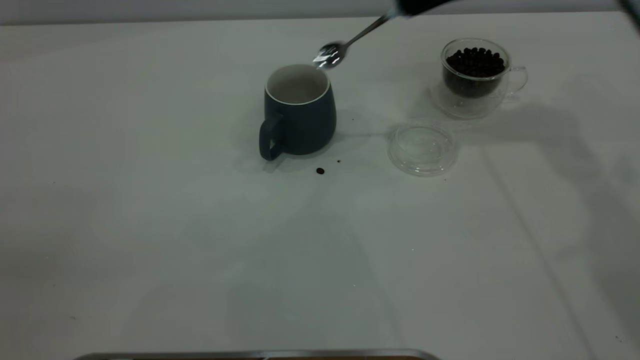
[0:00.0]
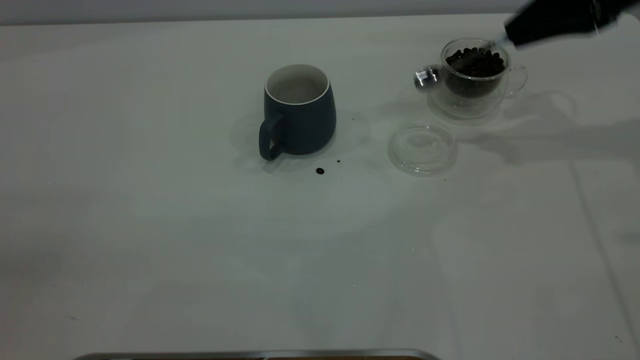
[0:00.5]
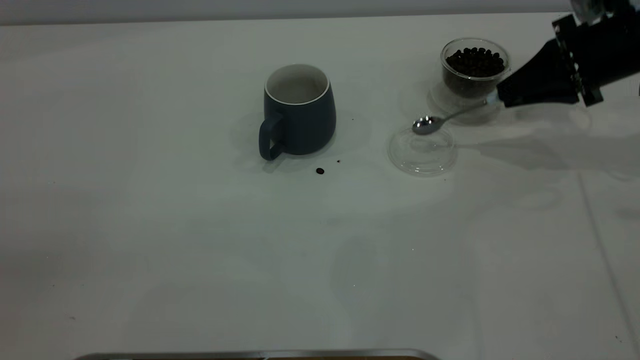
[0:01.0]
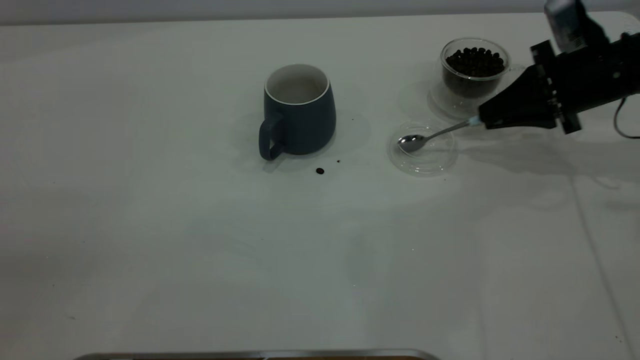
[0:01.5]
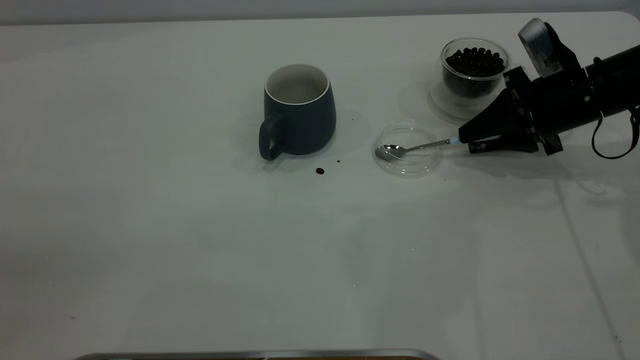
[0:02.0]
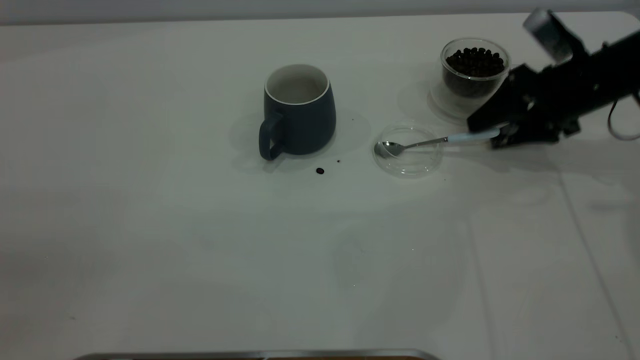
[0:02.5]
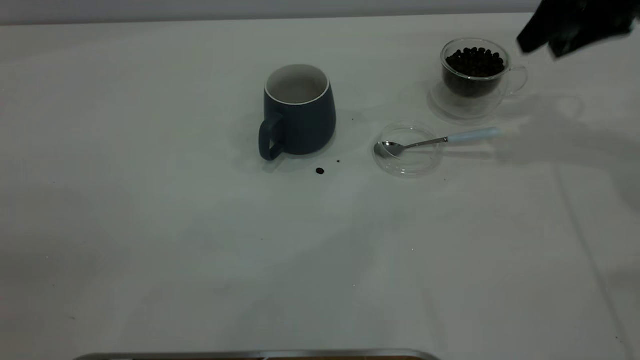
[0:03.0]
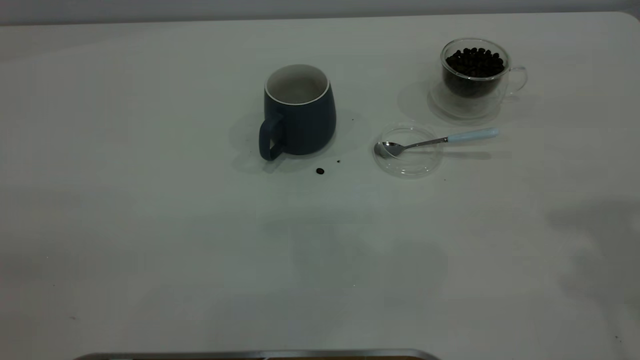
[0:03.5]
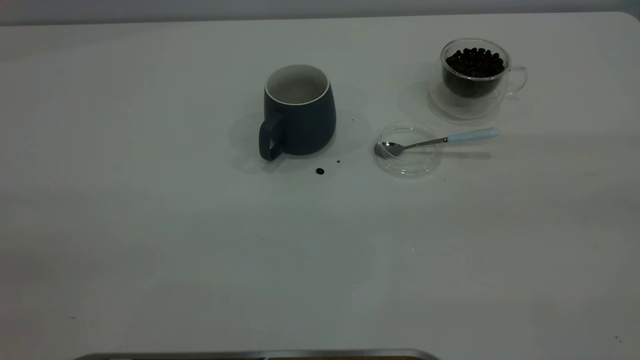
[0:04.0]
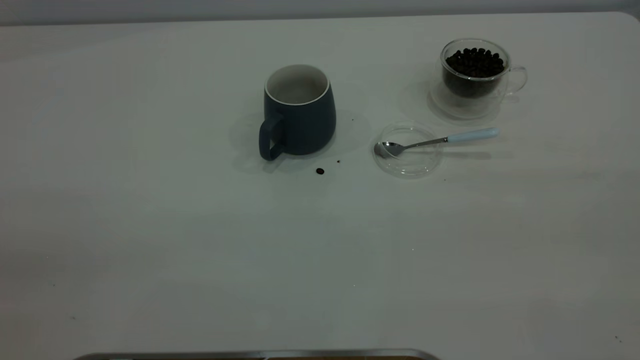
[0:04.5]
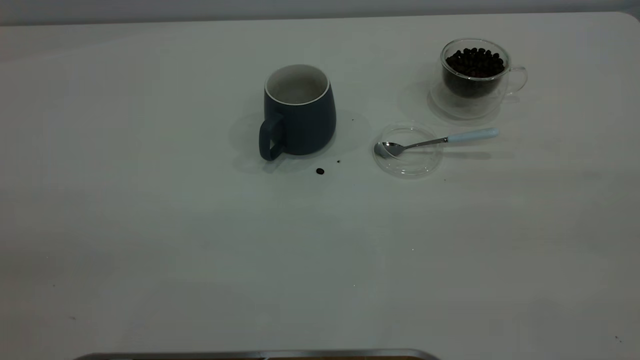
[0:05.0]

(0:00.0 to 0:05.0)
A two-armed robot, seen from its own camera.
Task of the whole recording: the left gripper place the grey cup in the center of the table, the right gripper take the blue spoon from the cup lid and scoop out the coffee beans from the coffee cup and put them into the grey cup, the right gripper put the spoon back into the cup lid.
Step, 0:00.0 - 0:02.5: Place the spoon back in its original place.
0:00.0 - 0:02.5: The right gripper shifts roughly 15 cm downward and to the right, and opens its fingers.
0:02.5 - 0:05.0: The right gripper travels backward and upward by approximately 50 cm.

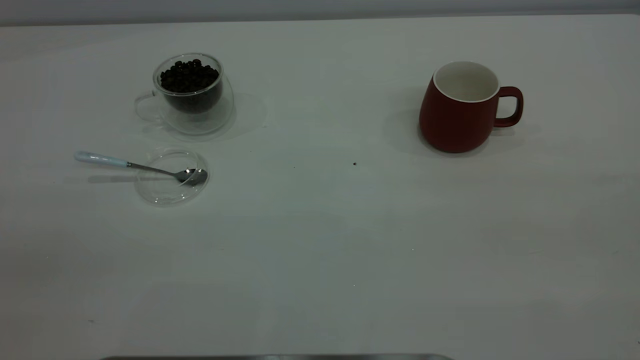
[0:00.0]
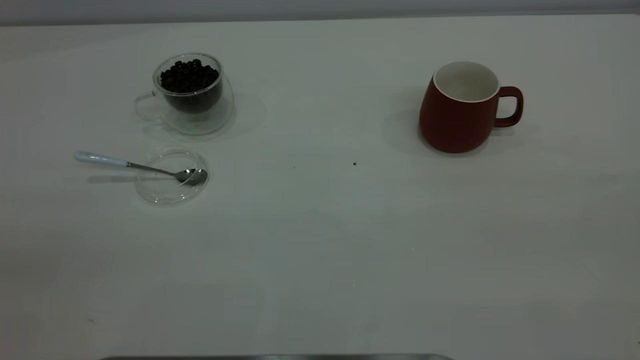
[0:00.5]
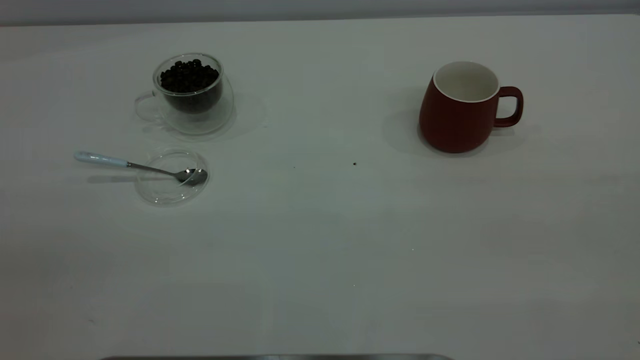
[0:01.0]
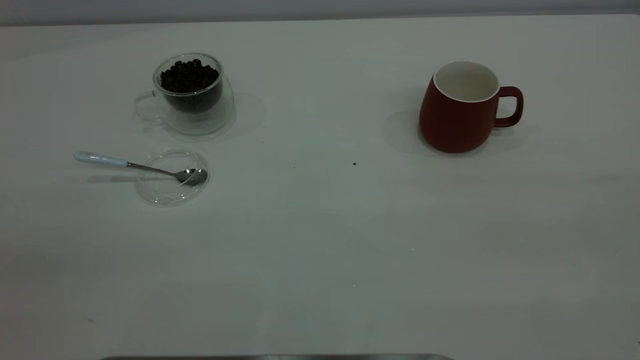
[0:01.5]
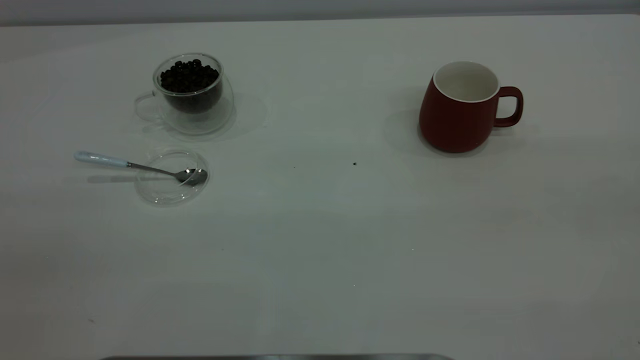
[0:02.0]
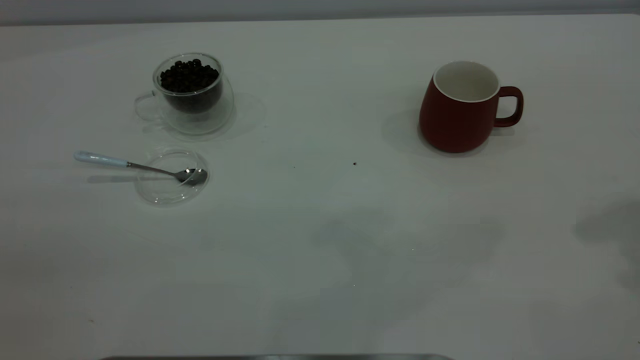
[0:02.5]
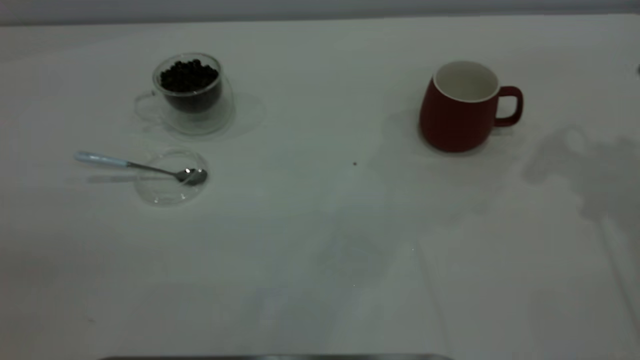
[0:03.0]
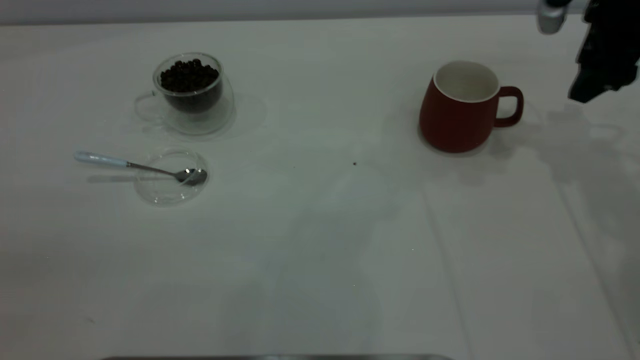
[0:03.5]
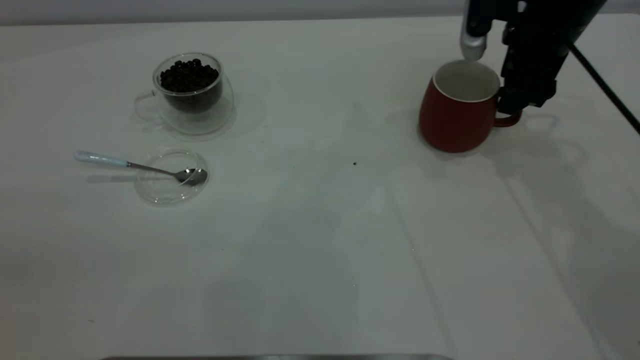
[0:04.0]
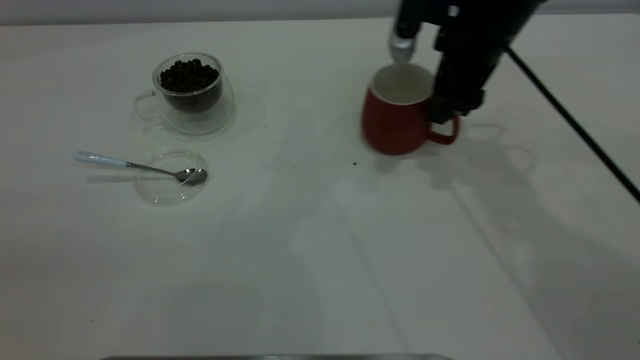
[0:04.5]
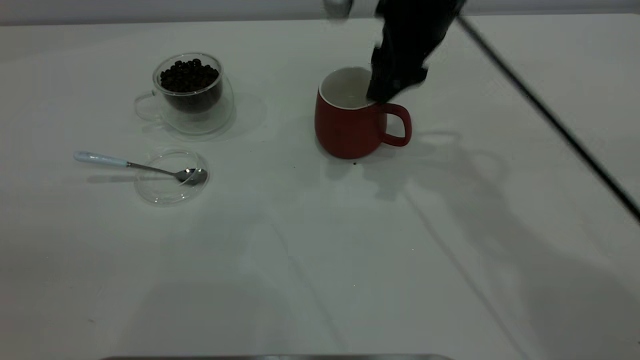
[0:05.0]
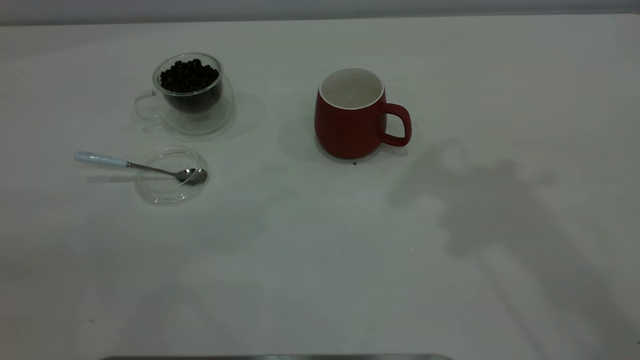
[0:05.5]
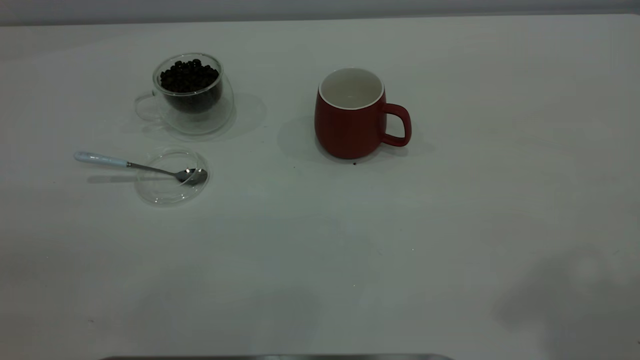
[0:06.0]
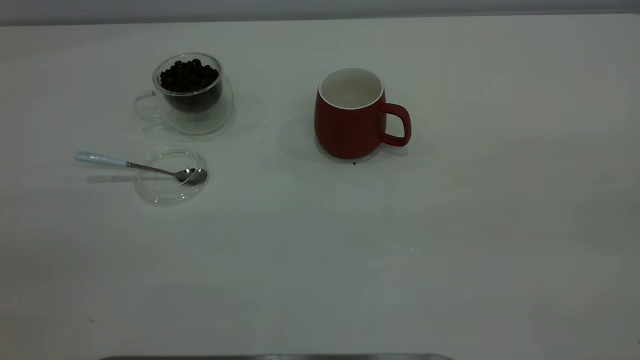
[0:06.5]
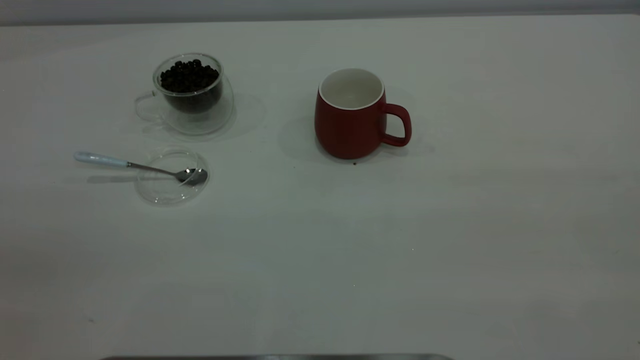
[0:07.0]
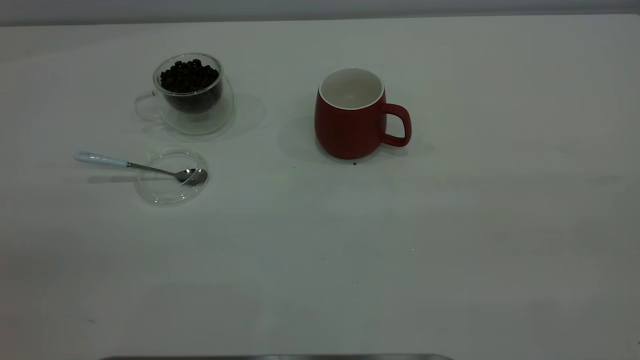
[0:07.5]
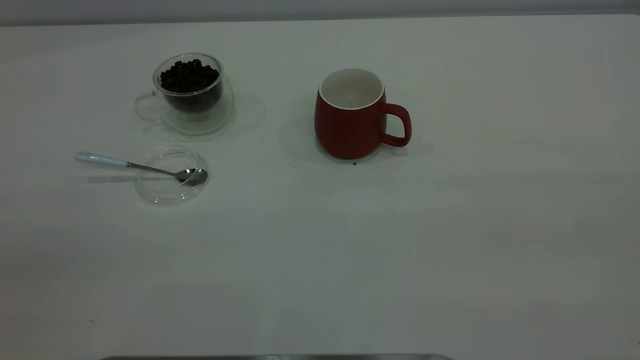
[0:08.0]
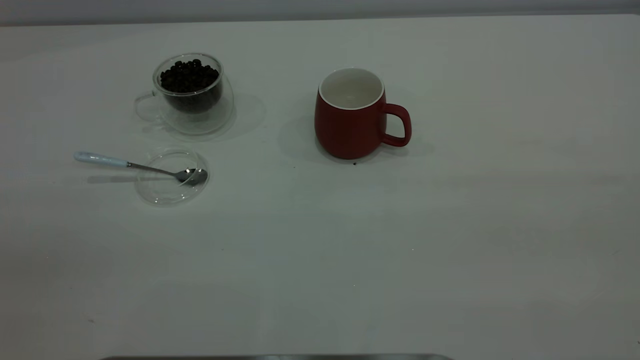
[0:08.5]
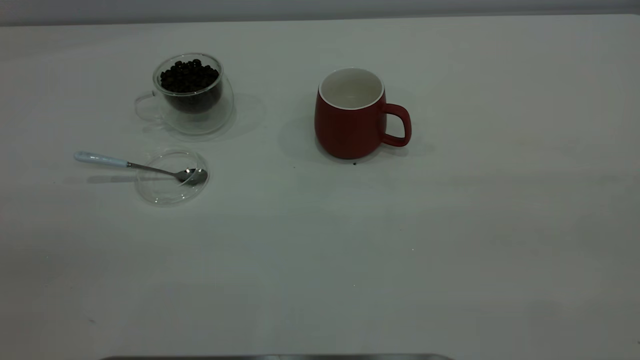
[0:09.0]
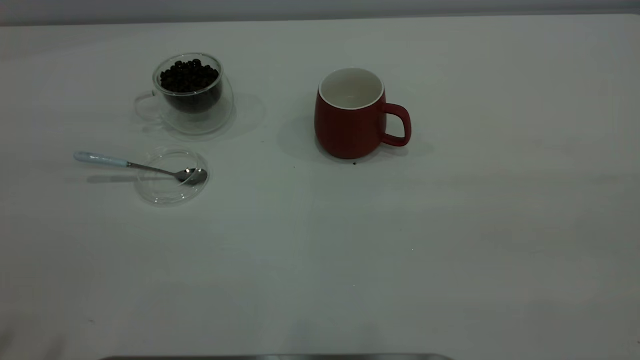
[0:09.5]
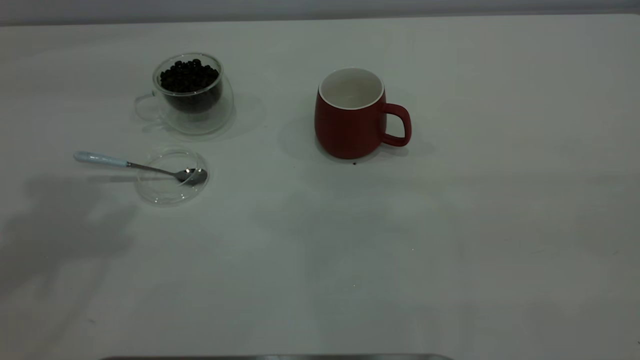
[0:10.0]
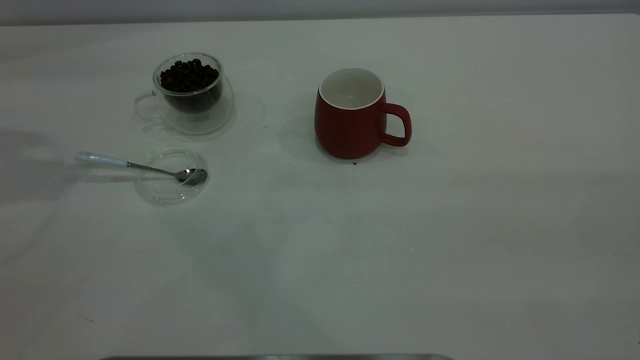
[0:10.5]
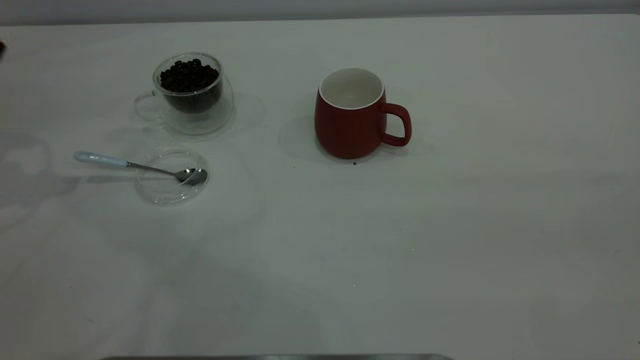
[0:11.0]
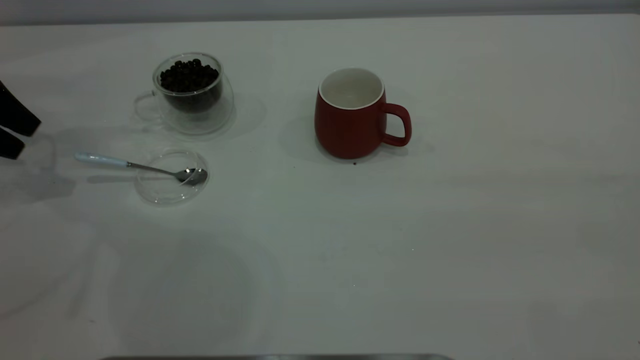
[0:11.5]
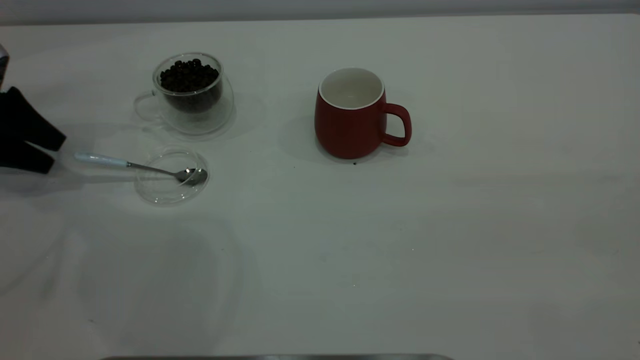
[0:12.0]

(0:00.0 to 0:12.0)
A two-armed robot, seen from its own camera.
Task of the whole recording: the right gripper place the red cup in the center of the table, the left gripper take the blue spoon from the cup lid and scoop out the coffee beans from the coffee cup and put them into the red cup, the left gripper put the spoon back into the cup lid.
Step, 0:00.0 - 0:05.0: Move the cup to the center of view.
0:02.0 - 0:04.0: The right gripper shifts approximately 40 cm forward and downward.
0:04.0 - 0:06.0: The right gripper is displaced upward and backward by approximately 40 cm.
0:10.0 - 0:12.0: The left gripper goes about 35 cm downward and to the left.

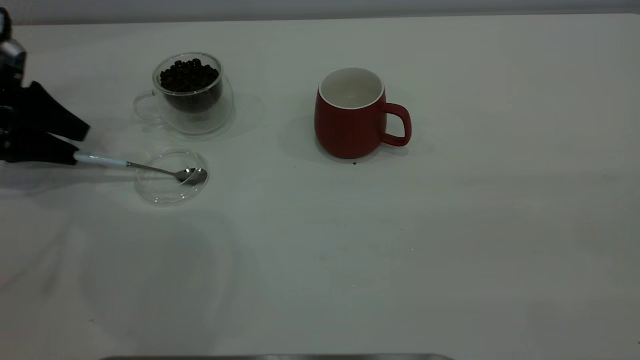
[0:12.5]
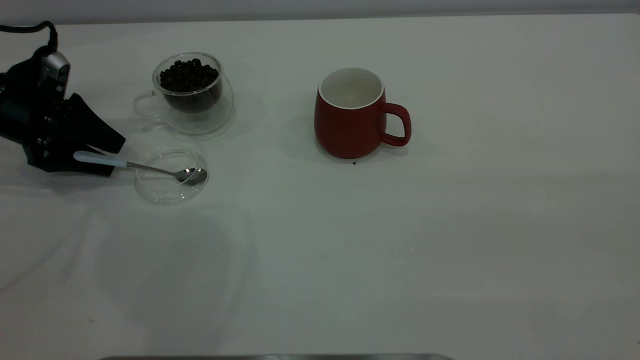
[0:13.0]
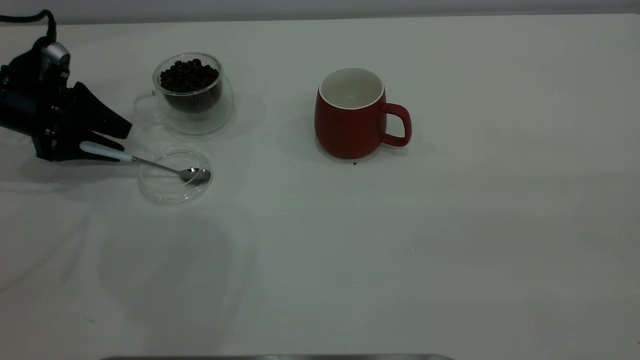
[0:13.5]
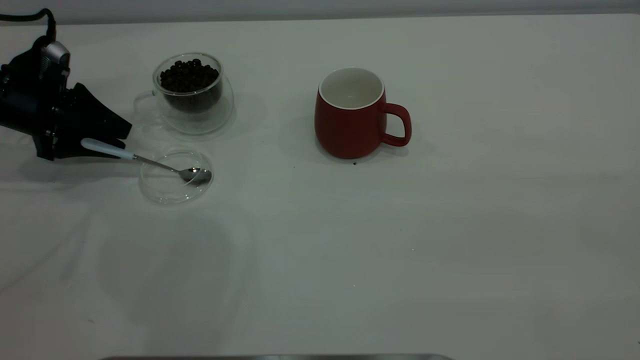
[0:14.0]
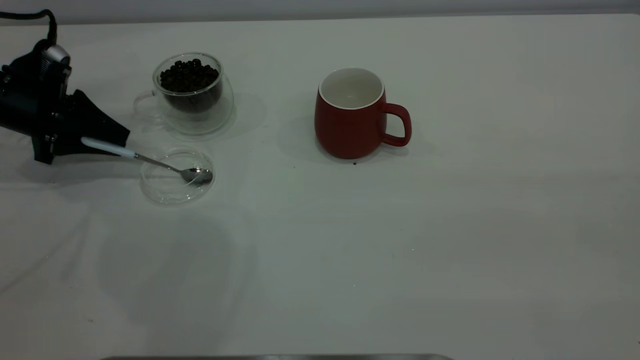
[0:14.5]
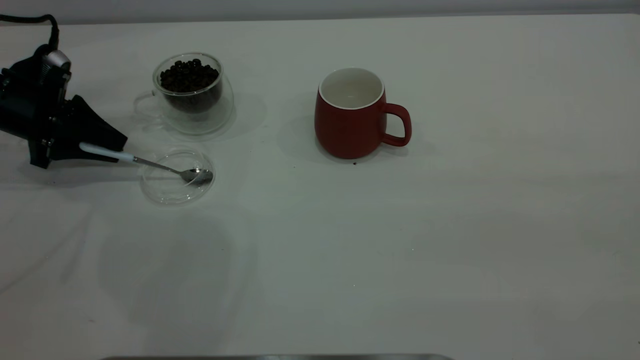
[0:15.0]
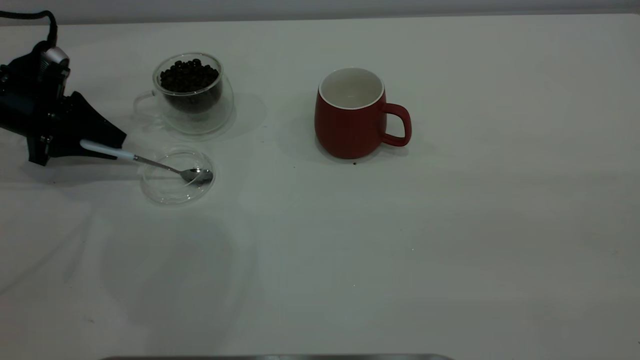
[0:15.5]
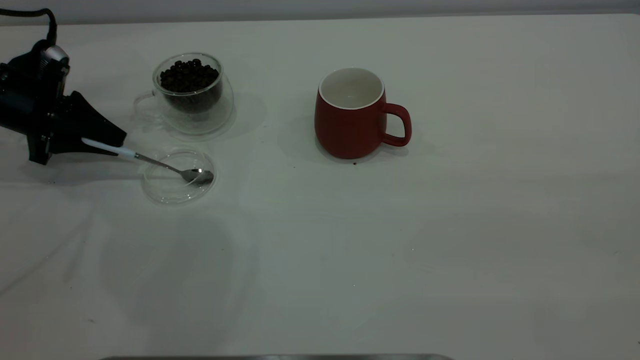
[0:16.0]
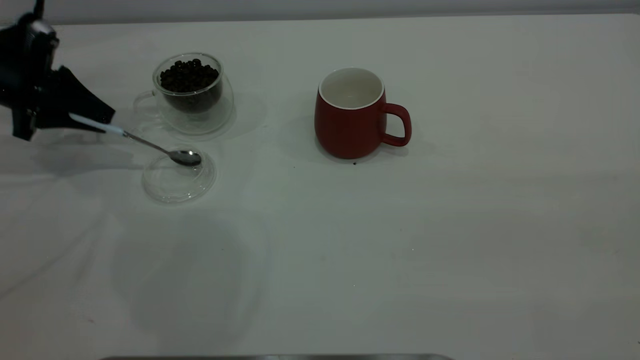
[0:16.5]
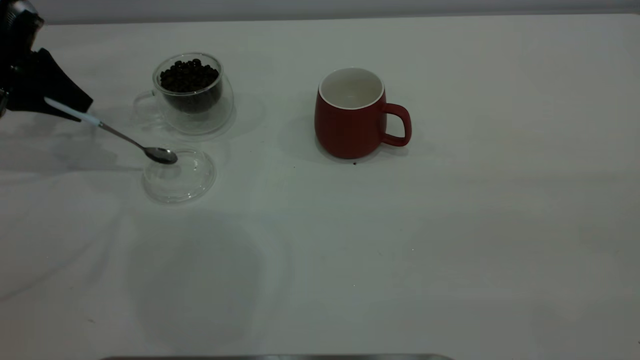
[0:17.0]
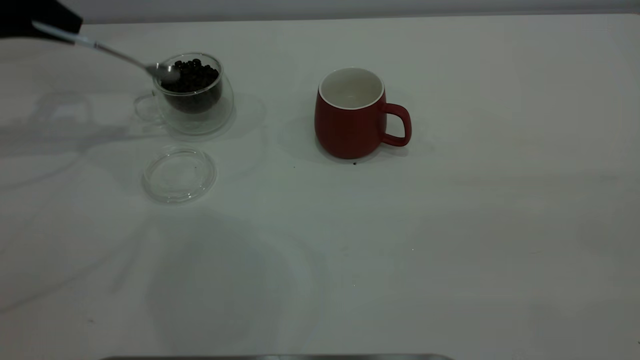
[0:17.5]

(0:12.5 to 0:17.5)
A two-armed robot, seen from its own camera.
Task of the whole recording: the right gripper place the red cup in the center of the table, the left gripper take the blue spoon from the cup lid and scoop out the coffee beans from the coffee cup and put them into the red cup, the left gripper put the spoon back into the cup lid.
Step, 0:12.5 - 0:17.0: Pick up the spoon.
0:12.5 - 0:15.0: The left gripper closes up.
0:15.0 - 0:17.5: The left gripper goes some 15 cm upward.
